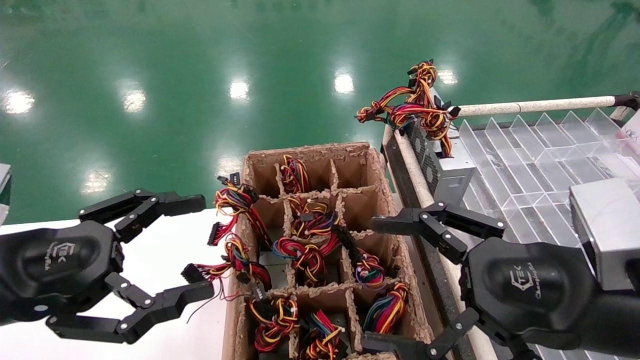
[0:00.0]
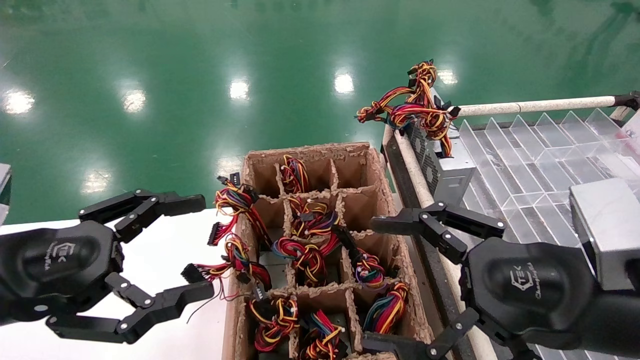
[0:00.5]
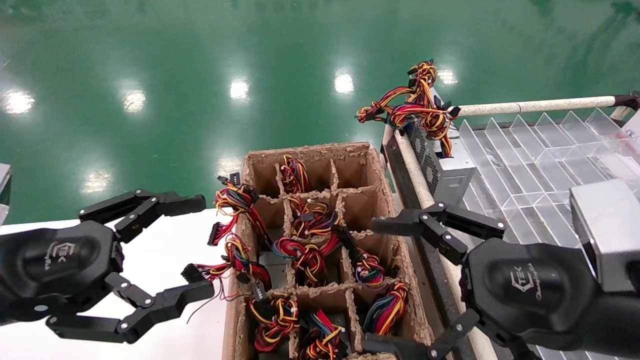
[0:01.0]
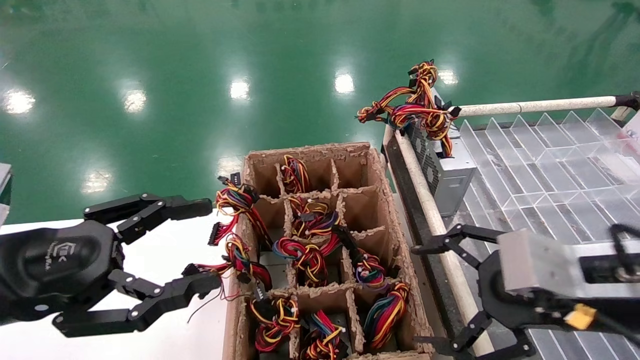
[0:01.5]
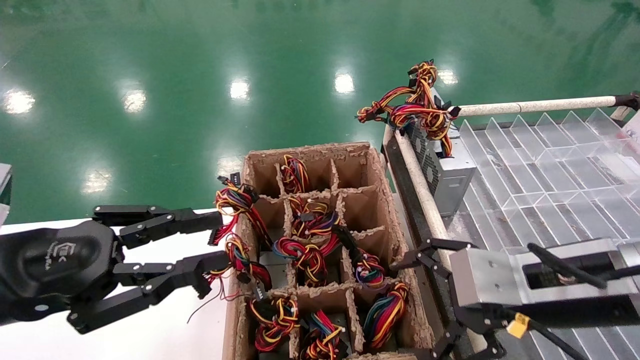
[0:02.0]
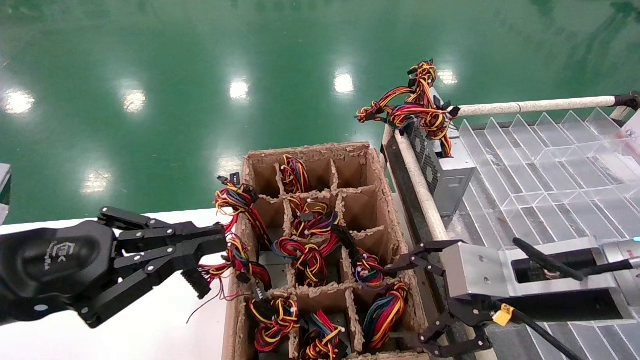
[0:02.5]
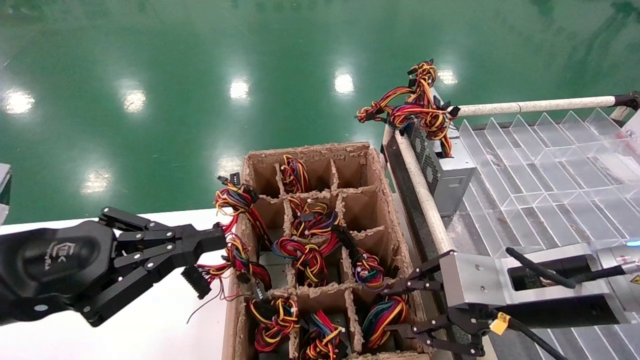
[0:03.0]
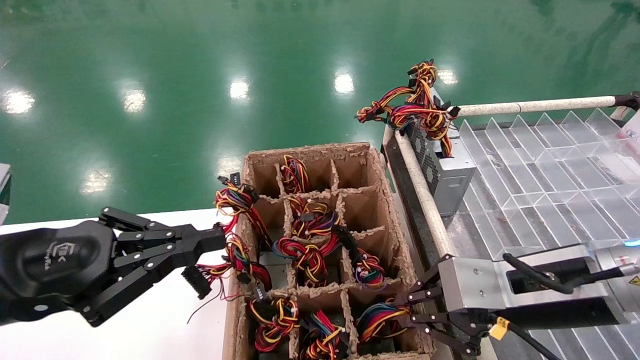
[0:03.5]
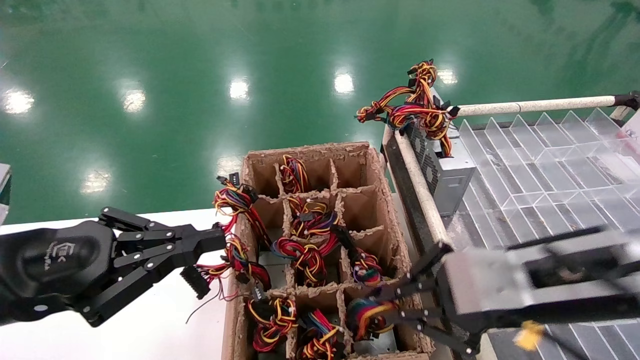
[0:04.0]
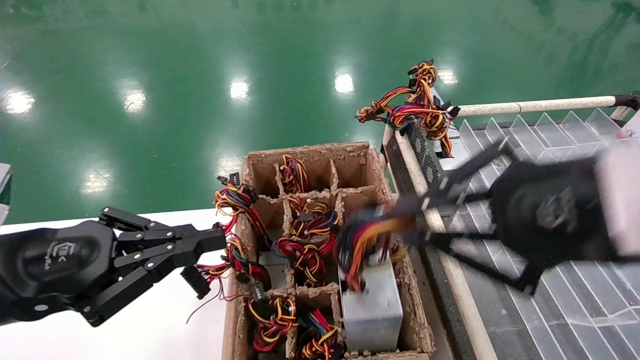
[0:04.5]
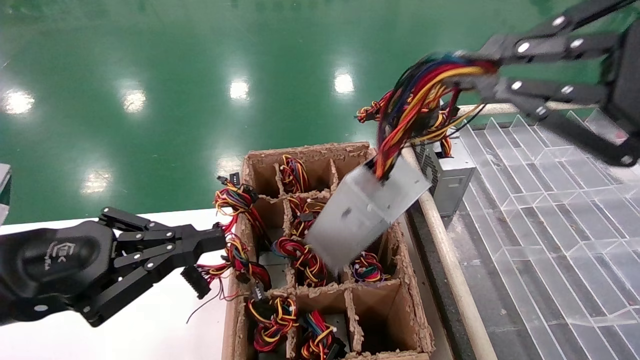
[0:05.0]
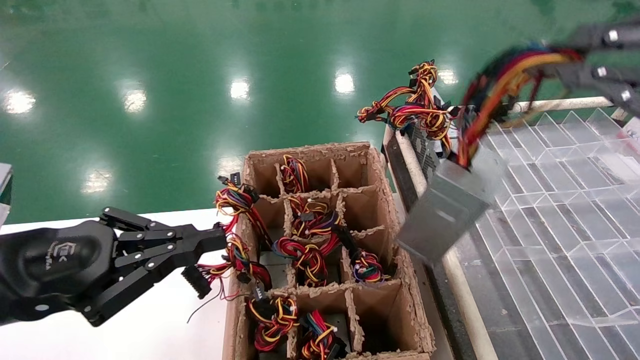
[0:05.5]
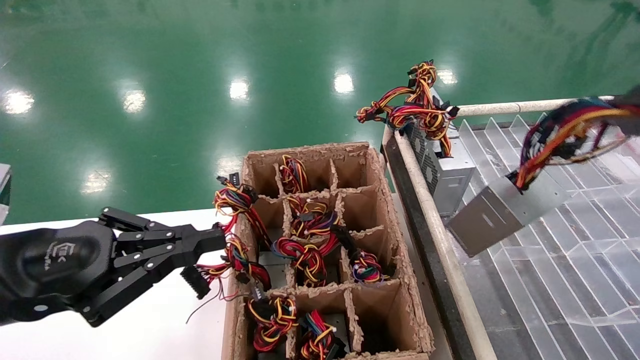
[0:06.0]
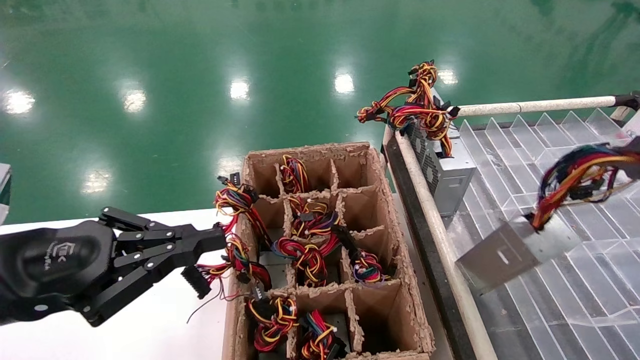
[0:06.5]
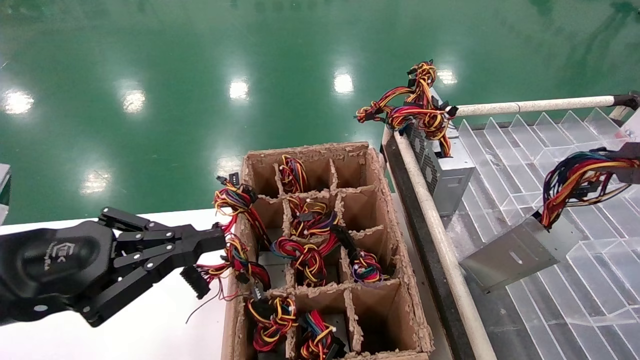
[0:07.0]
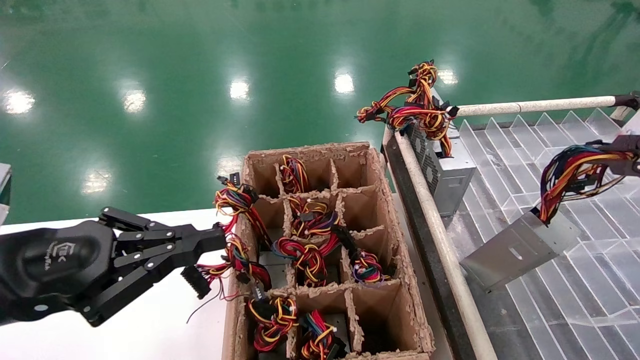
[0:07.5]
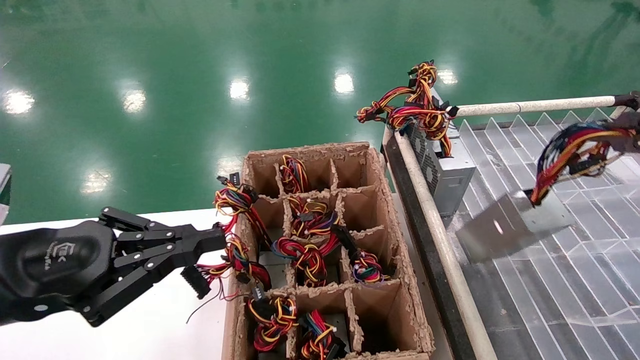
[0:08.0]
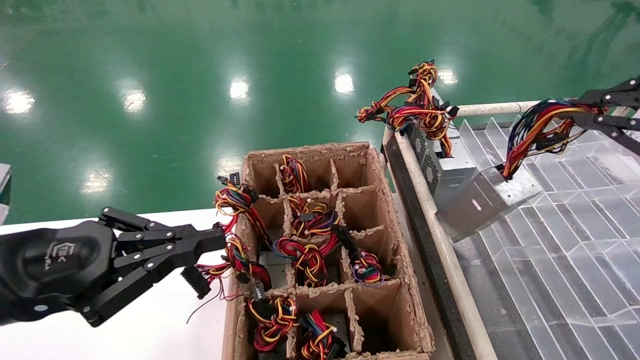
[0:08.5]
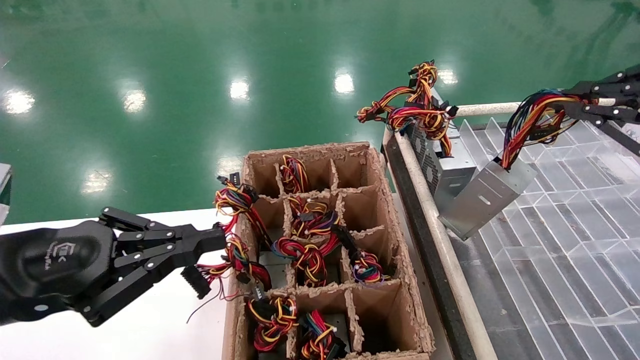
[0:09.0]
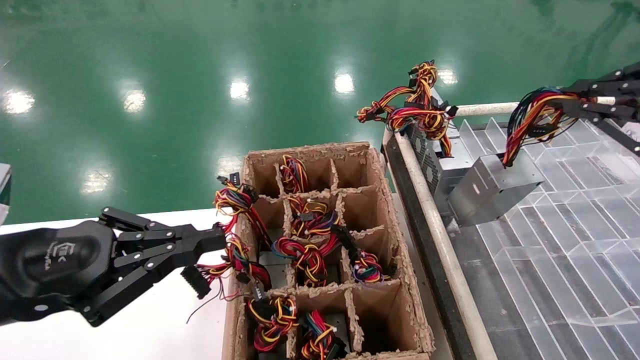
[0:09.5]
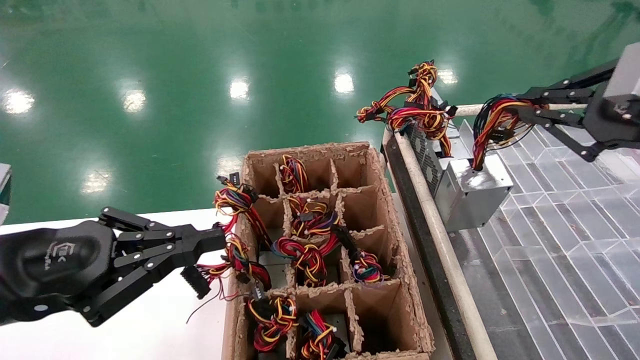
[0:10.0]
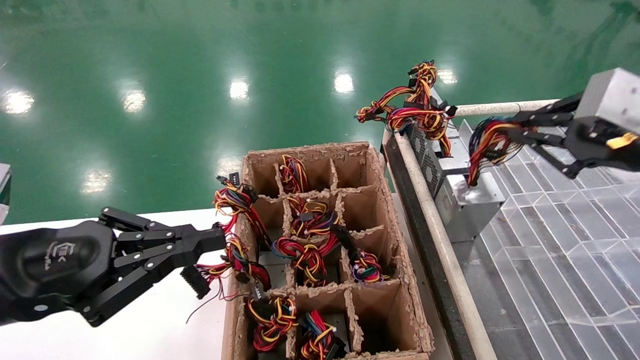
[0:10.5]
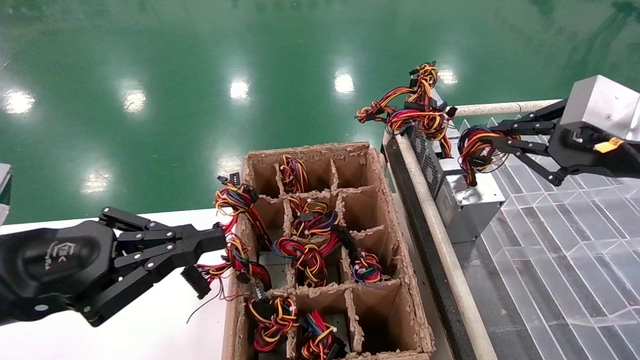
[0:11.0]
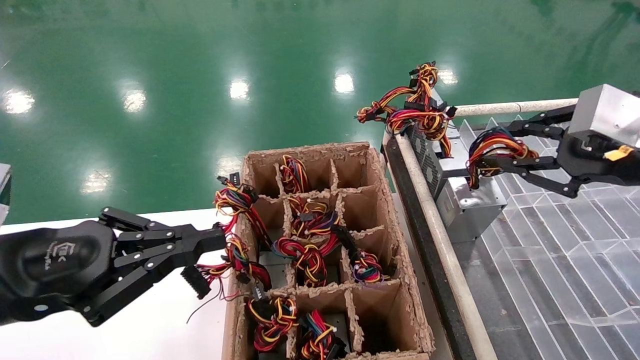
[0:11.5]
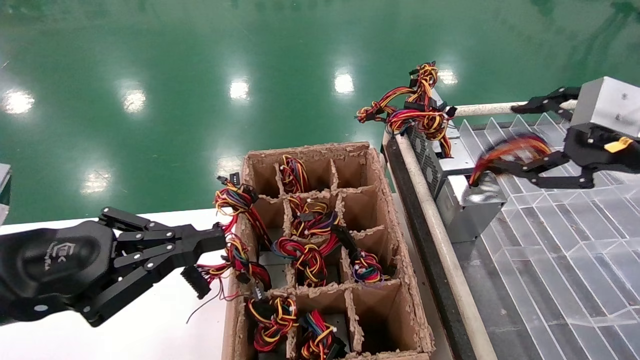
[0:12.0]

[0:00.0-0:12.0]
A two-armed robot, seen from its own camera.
Step, 0:01.5 to 0:03.5: Grab the main unit power supply from the containment box.
Step, 0:04.0 to 0:12.0: Place the main unit power supply in the designated area.
0:00.0 to 0:02.0: The left gripper closes up, while the right gripper travels forward by some 5 cm.
0:02.0 to 0:04.0: The right gripper closes its fingers, while the left gripper closes.
0:04.0 to 0:06.0: The right gripper goes roughly 20 cm to the right, upward and backward.
0:06.0 to 0:08.0: The grippers stay close to where they were, moving slightly.
0:08.0 to 0:10.0: The right gripper moves forward, some 10 cm.
0:10.0 to 0:12.0: The right gripper opens its fingers.

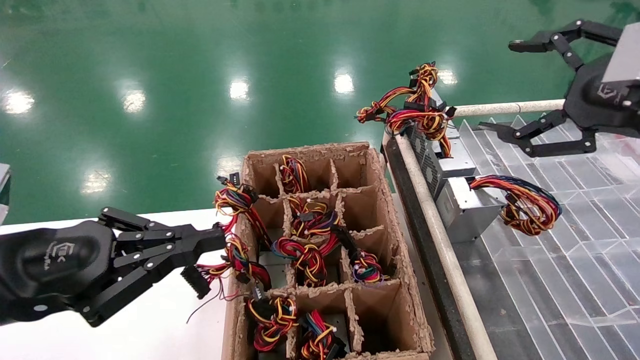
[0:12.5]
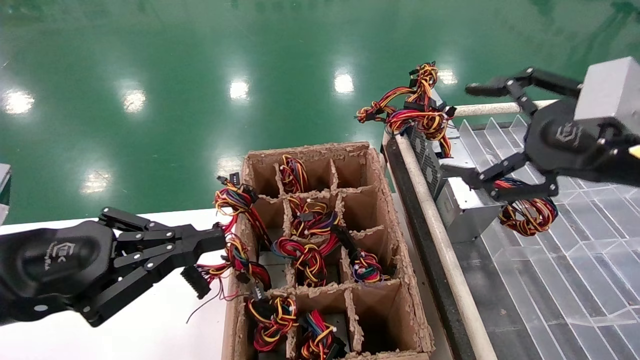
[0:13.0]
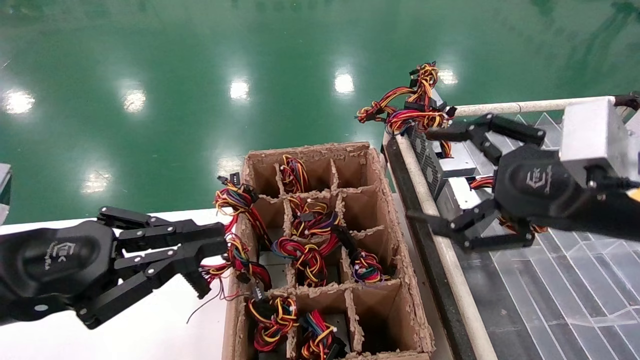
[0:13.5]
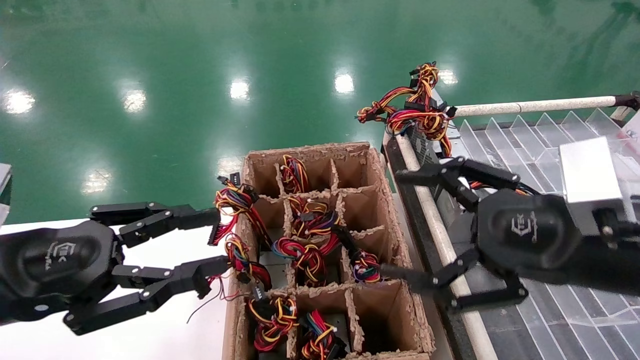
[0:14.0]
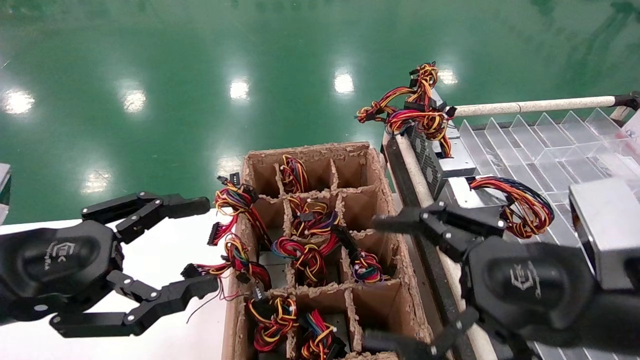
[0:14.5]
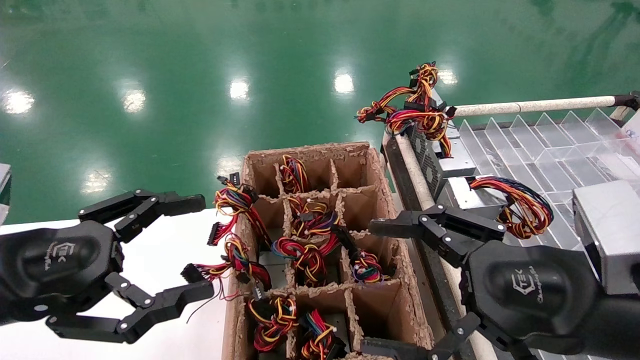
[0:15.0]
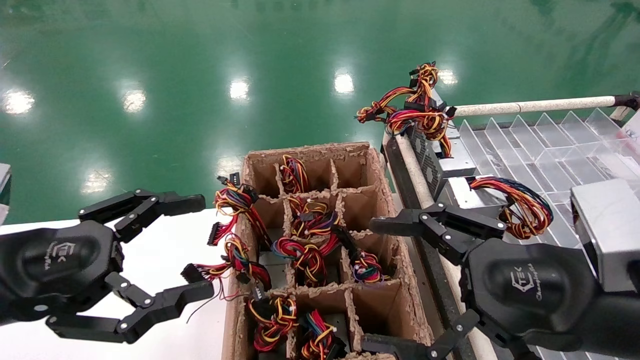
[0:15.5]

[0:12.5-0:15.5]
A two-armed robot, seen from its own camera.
0:12.5 to 0:14.0: The right gripper is displaced downward and to the left by some 15 cm; the left gripper opens up.
0:14.0 to 0:15.5: The left gripper opens.
